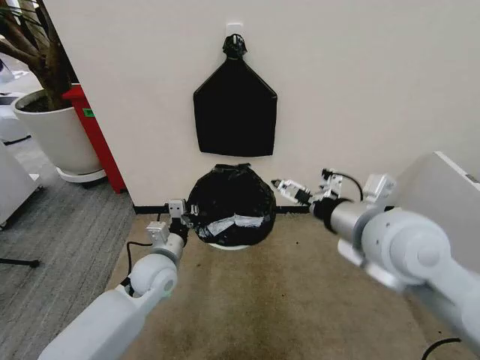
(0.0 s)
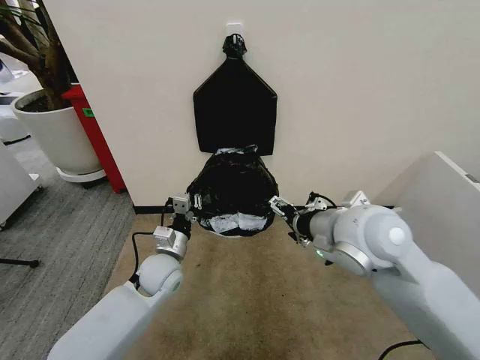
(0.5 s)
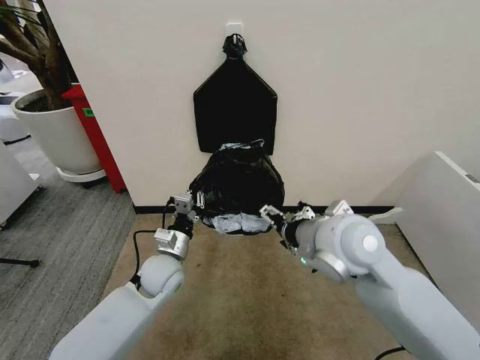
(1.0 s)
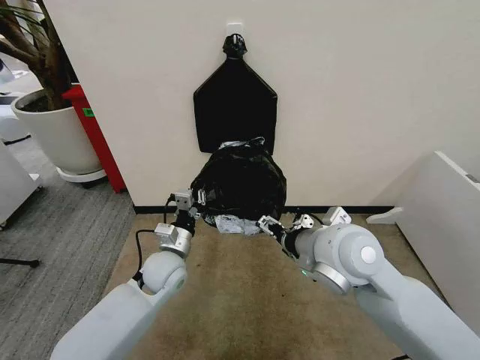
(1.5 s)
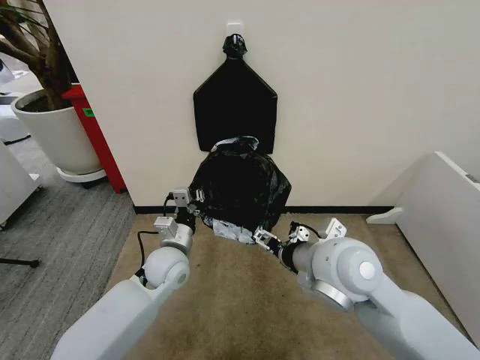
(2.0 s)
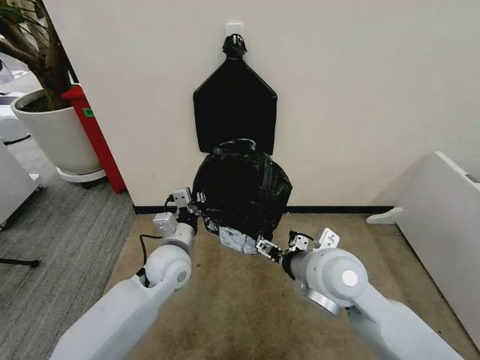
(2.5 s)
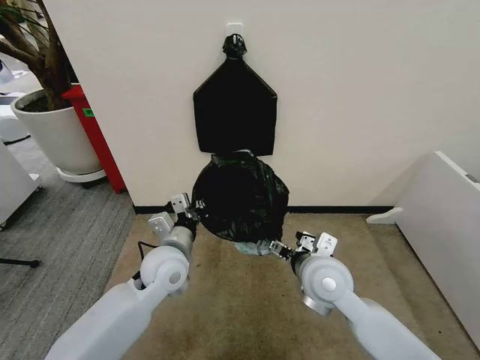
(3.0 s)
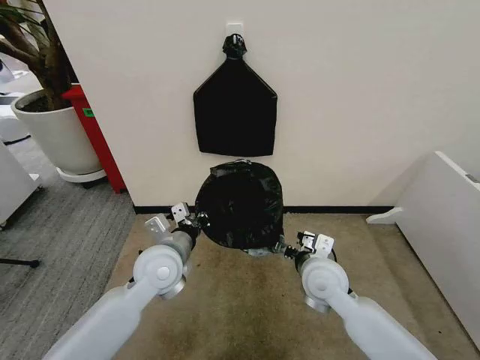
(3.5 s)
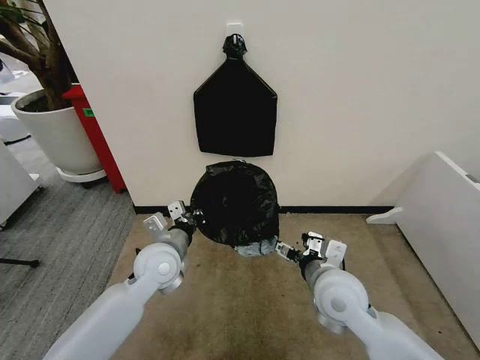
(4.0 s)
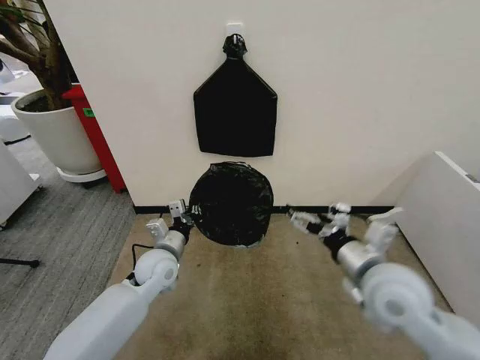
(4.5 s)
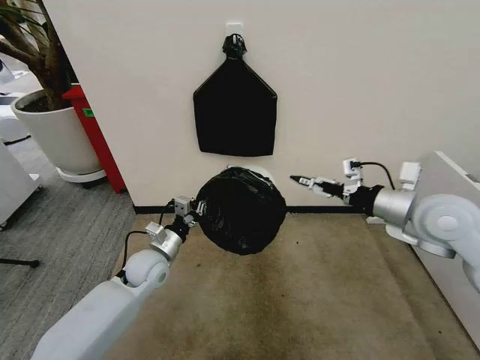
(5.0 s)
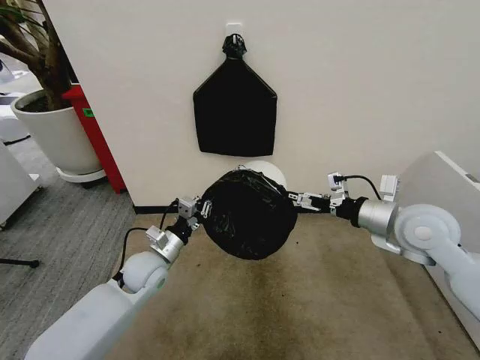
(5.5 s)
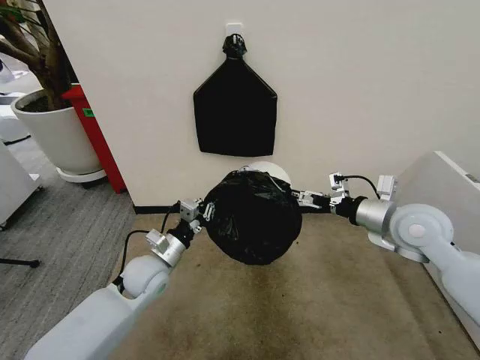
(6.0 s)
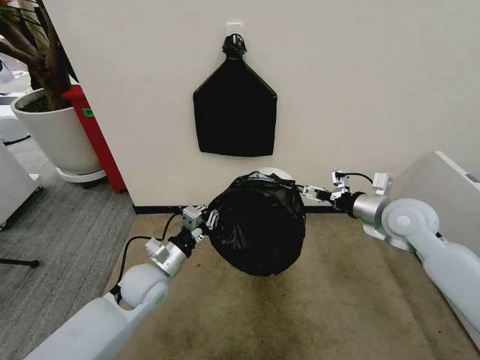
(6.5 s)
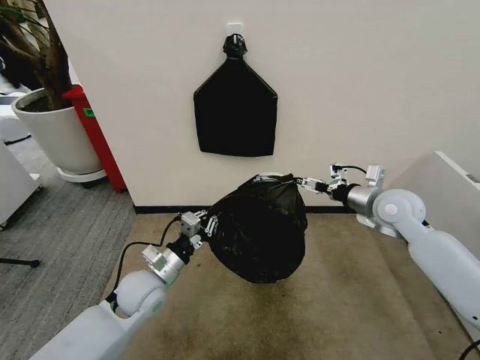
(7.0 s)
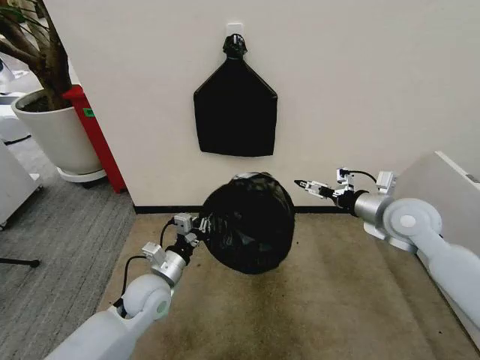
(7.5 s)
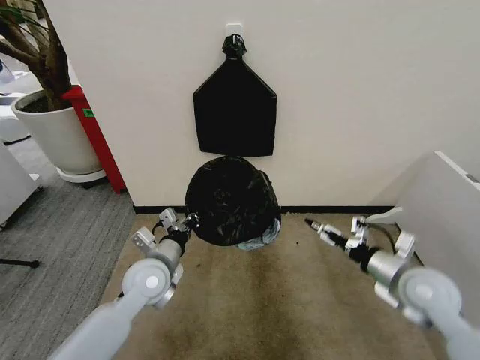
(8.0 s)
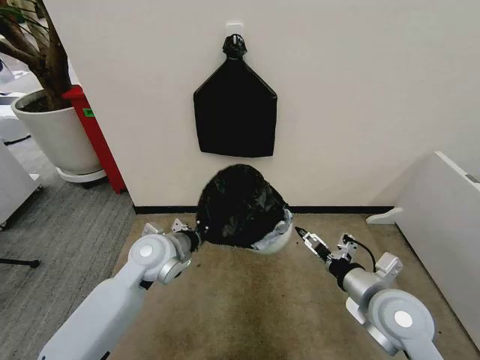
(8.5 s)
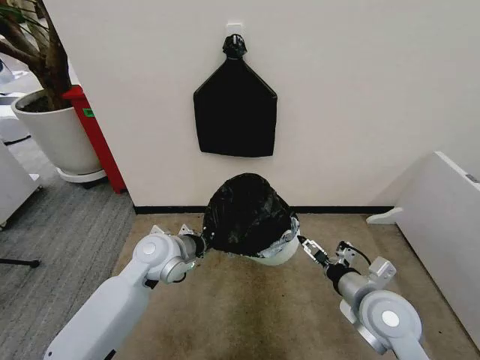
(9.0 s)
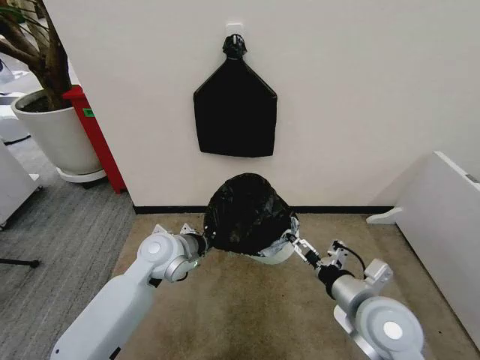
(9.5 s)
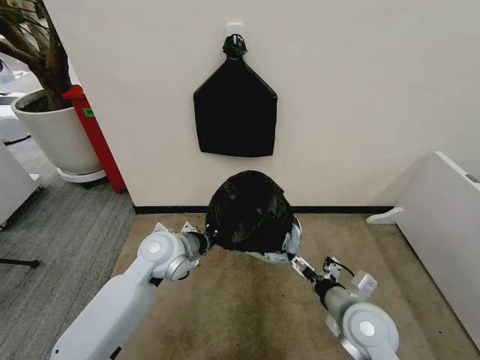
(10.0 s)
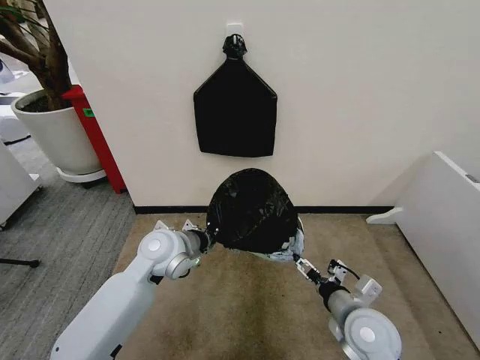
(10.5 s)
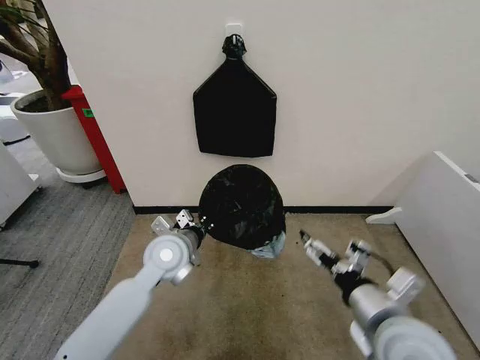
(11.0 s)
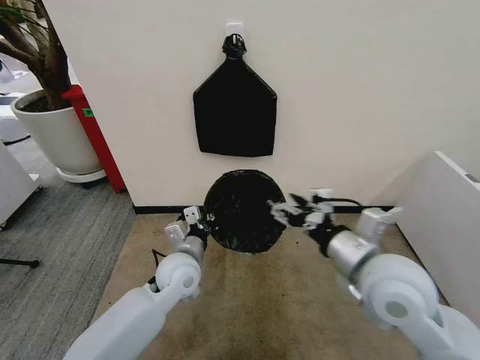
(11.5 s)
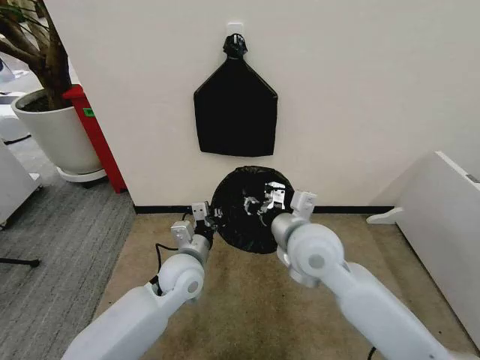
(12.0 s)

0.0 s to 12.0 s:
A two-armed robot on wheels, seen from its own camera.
Task of the whole recording: Place the garbage bag over the trash bin.
0.0 to 2.0 s: The right gripper heads downward and to the left, covering approximately 10 cm.
2.0 to 4.0 s: The right gripper moves downward, roughly 10 cm.
4.0 to 6.0 s: The left gripper travels downward by roughly 5 cm; the right gripper is displaced to the right, upward and forward by approximately 20 cm.
6.0 to 8.0 s: The right gripper travels downward and backward by roughly 15 cm.
8.0 to 10.0 s: The right gripper moves to the left, downward and backward, about 15 cm; the left gripper ends up about 5 cm from where it was.
10.0 to 12.0 s: The right gripper heads upward, to the left and forward, covering approximately 20 cm, and closes its fingers. Meanwhile the left gripper moves about 5 cm.

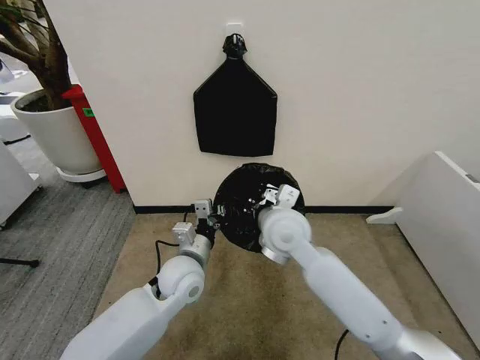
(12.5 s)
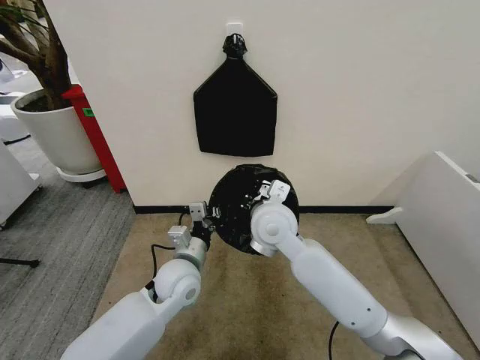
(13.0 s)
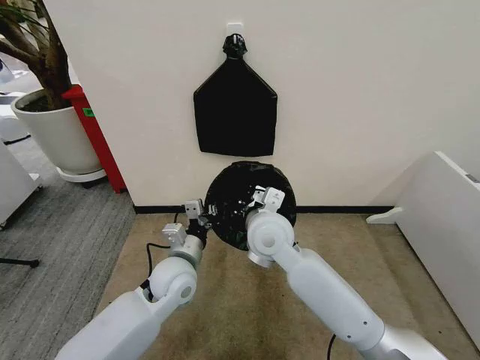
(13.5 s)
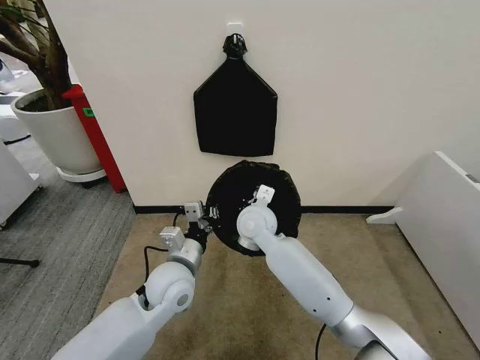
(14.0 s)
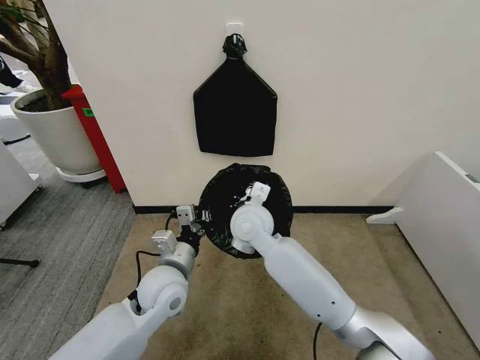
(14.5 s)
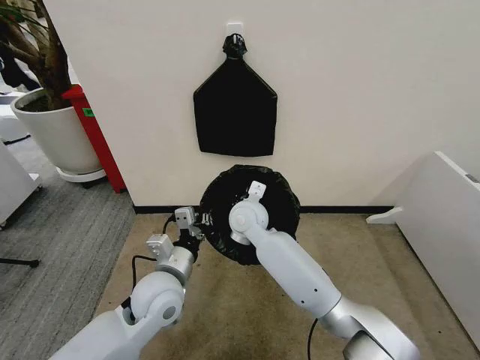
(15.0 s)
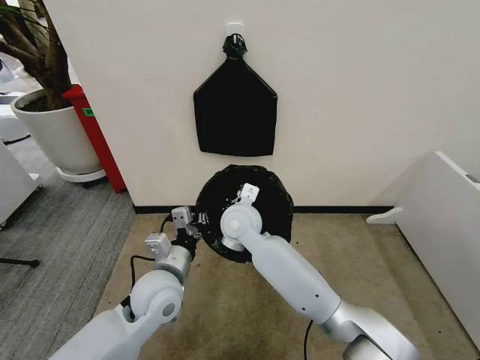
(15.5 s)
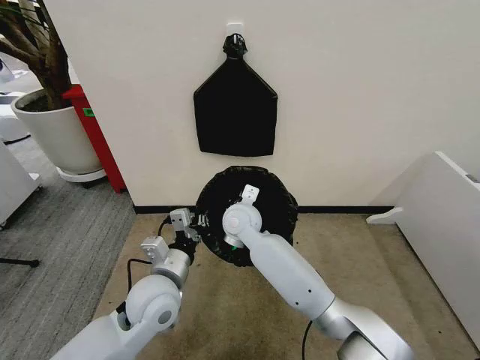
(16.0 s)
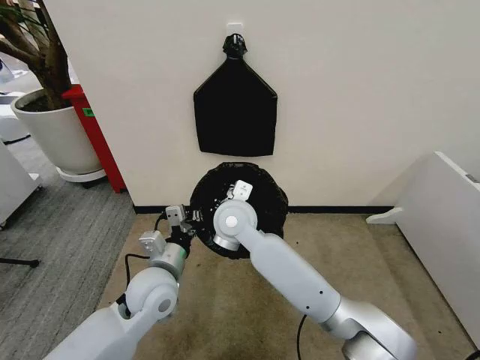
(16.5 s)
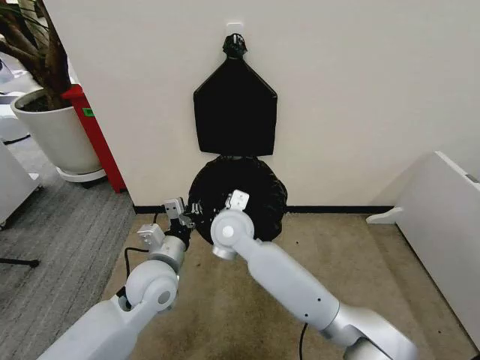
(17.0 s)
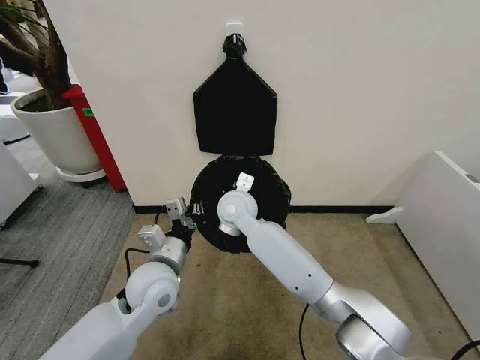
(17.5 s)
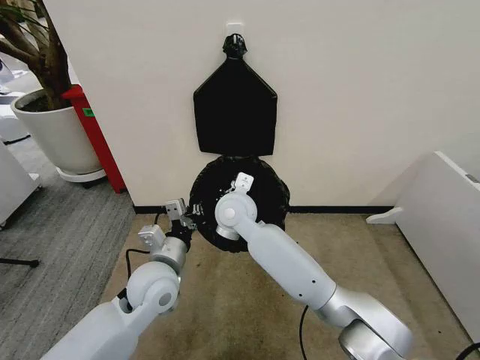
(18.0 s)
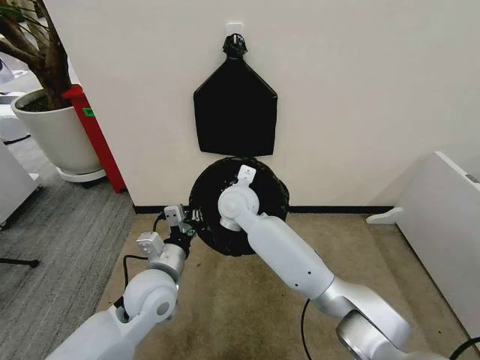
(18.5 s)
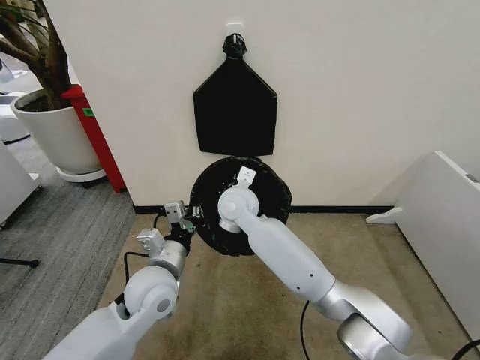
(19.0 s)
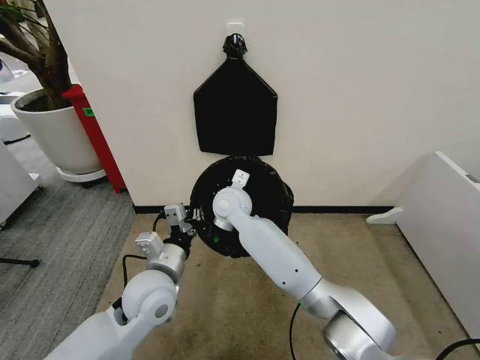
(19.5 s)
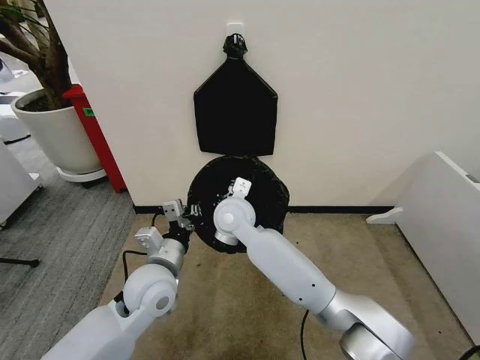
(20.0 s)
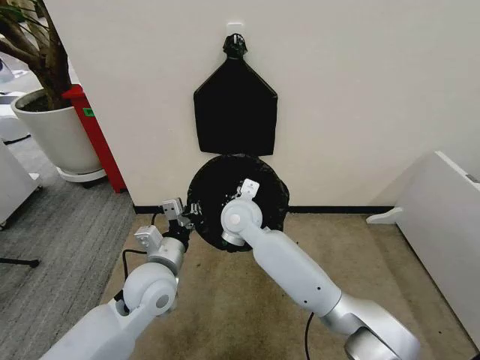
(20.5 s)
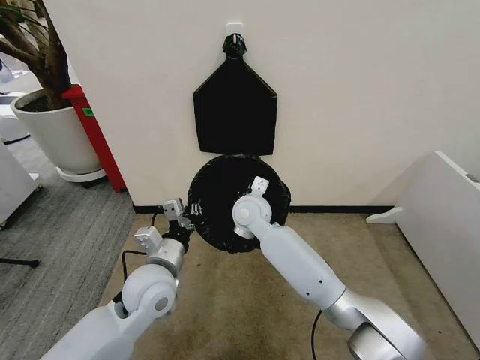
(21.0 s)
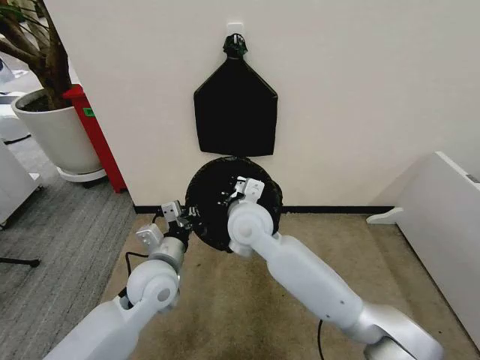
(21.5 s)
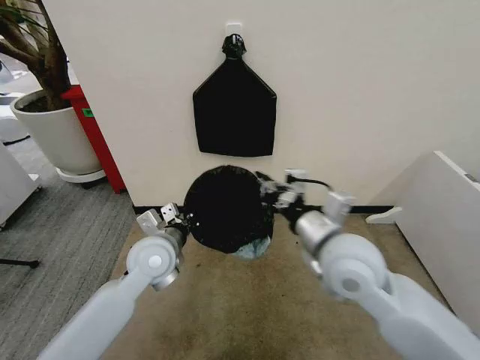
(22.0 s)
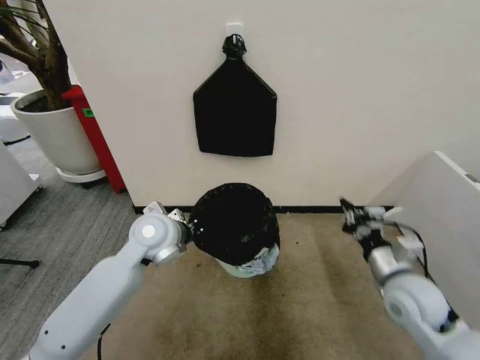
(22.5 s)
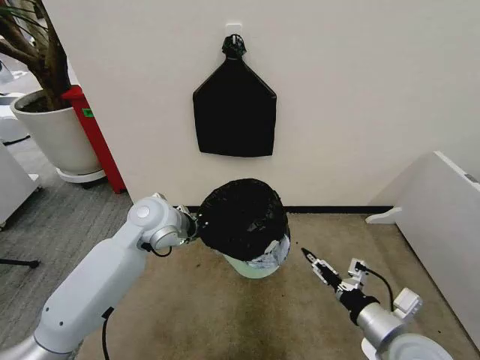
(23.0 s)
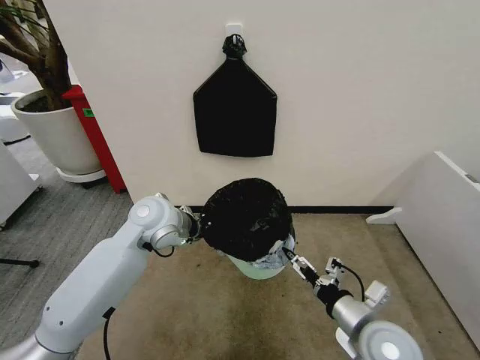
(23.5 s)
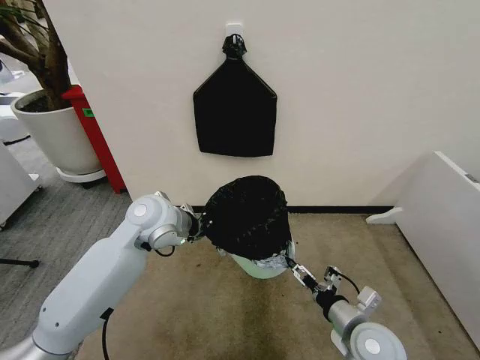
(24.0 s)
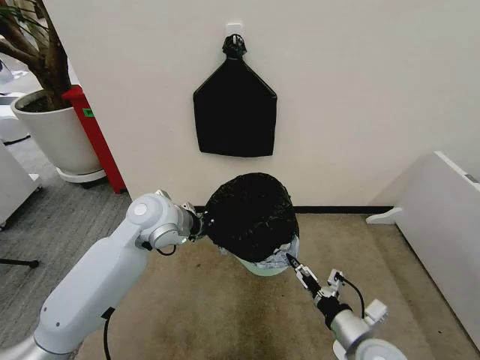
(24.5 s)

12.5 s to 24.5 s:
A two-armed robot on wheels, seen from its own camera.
Task of the whole recording: Place the garbage bag over the trash bin.
12.5 to 14.5 s: The right gripper heads to the left, covering some 5 cm.
14.5 to 16.5 s: The right gripper shifts by some 5 cm.
16.5 to 18.5 s: The right gripper heads forward, covering approximately 5 cm.
18.5 to 20.5 s: There are only small adjustments of the grippers.
20.5 to 22.5 s: The right gripper shifts approximately 35 cm to the right and backward; the left gripper goes roughly 10 cm forward and upward.
22.5 to 24.5 s: The right gripper heads backward, to the left and downward, covering some 15 cm, and opens its fingers.

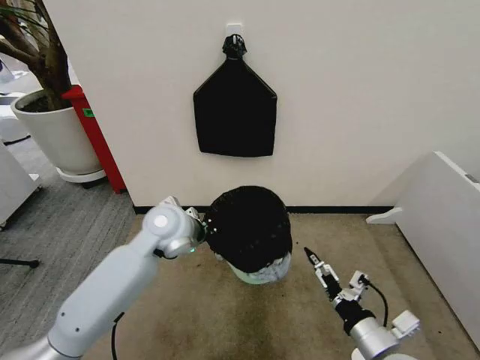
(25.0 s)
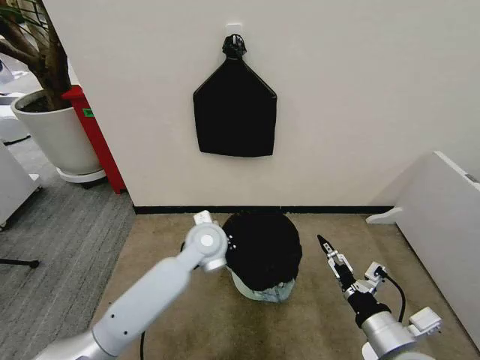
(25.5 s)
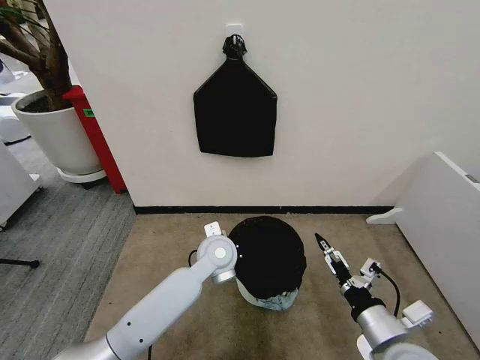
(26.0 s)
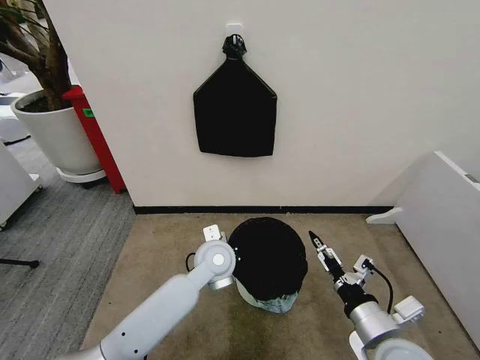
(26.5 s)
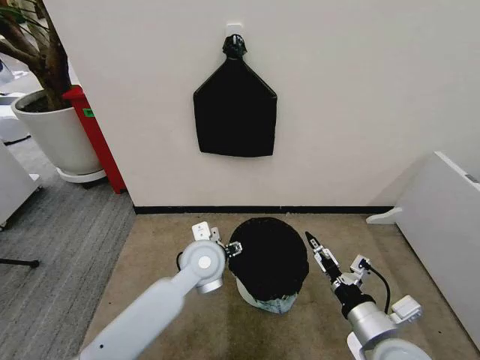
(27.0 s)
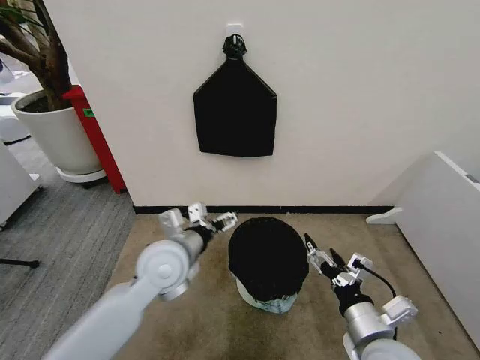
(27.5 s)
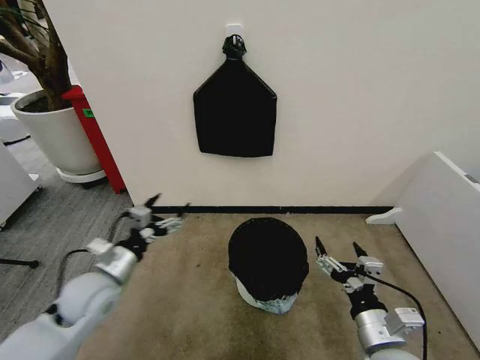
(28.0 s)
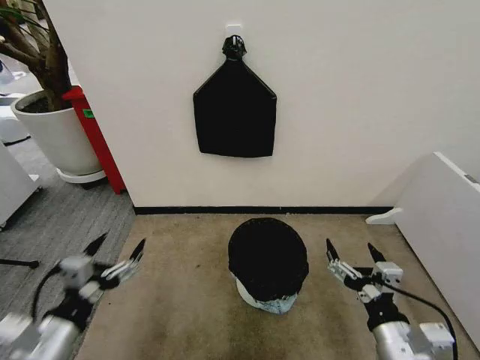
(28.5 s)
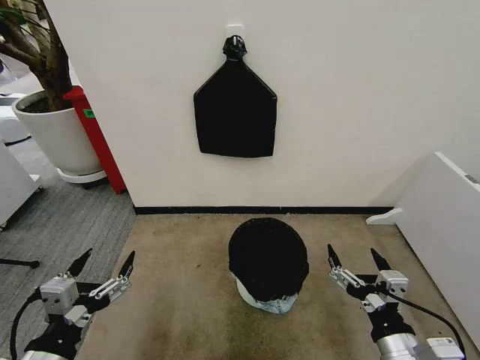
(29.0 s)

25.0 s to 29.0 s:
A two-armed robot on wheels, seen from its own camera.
Task of the whole recording: Place the garbage bag over the trash bin.
25.0 to 27.0 s: The left gripper shifts roughly 10 cm to the right and downward, and opens its fingers.
27.0 to 29.0 s: The left gripper travels backward and to the left by about 35 cm, while the right gripper goes some 5 cm backward.
